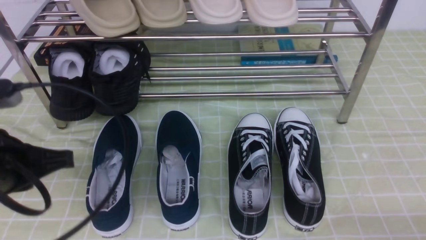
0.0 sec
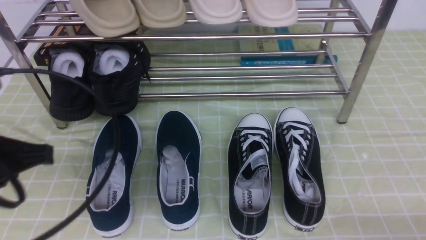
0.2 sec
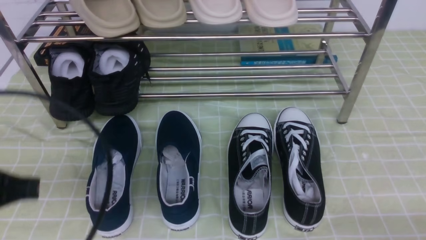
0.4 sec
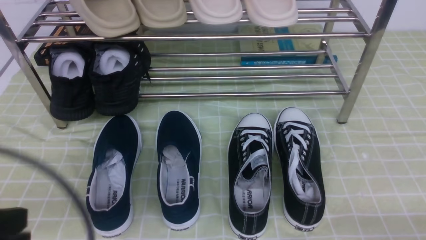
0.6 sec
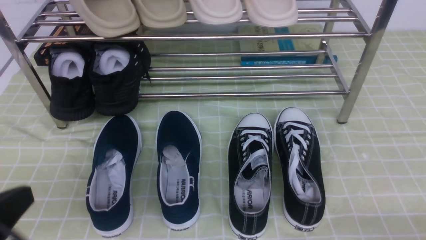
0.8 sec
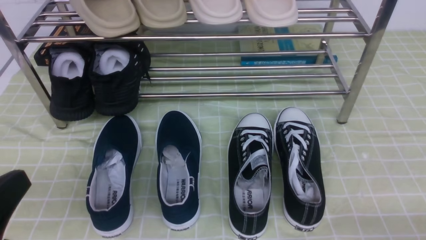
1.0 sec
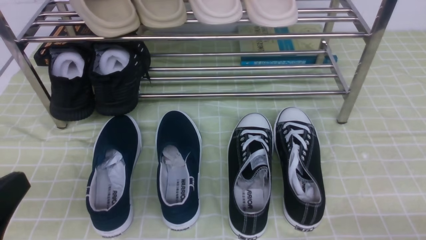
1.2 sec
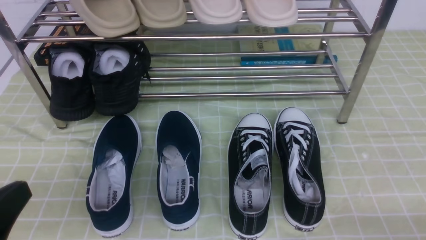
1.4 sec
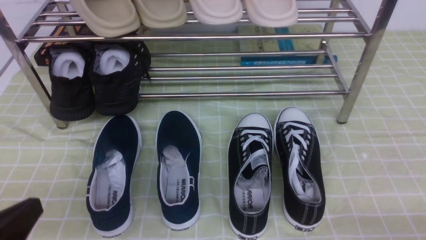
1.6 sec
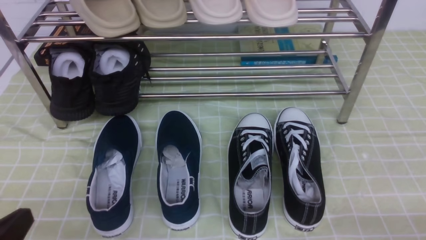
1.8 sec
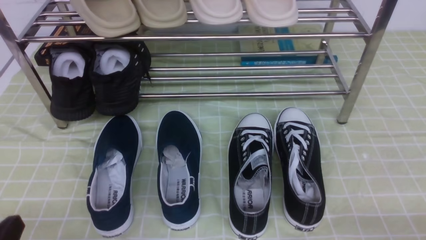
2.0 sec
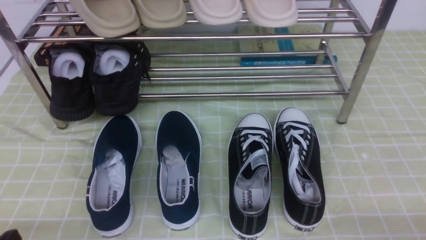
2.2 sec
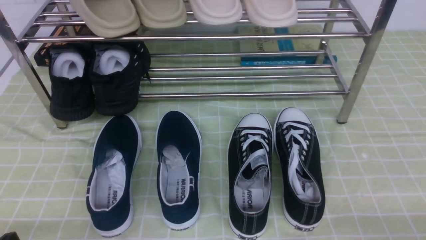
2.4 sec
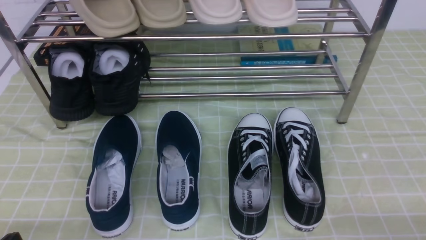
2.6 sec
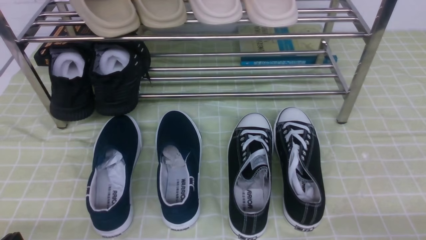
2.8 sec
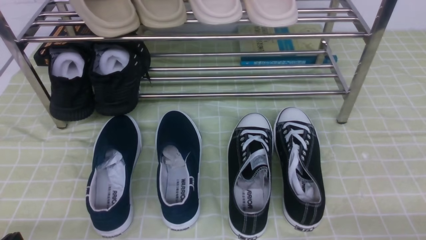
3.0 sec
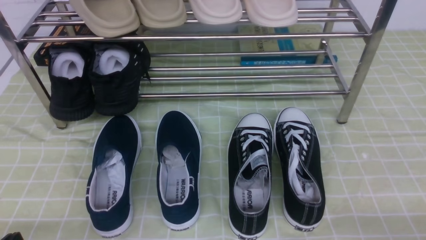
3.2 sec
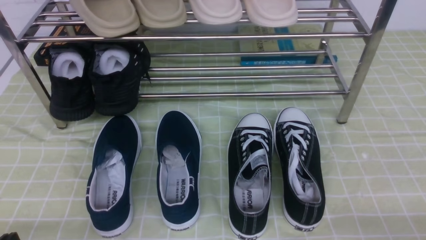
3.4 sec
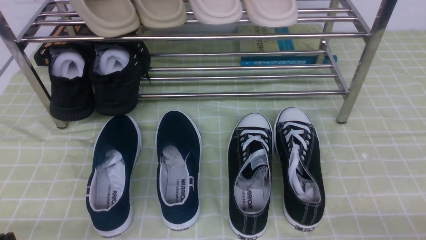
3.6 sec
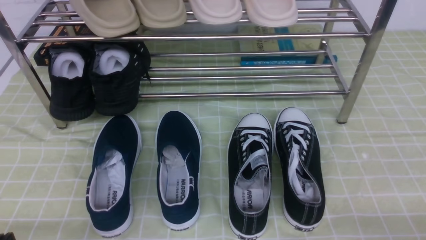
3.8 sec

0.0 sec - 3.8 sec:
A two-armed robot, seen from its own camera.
0.0 sec - 1.2 sec: The left gripper heads backward, covering some 10 cm.
1.2 sec - 2.6 sec: The left gripper shifts roughly 10 cm downward.

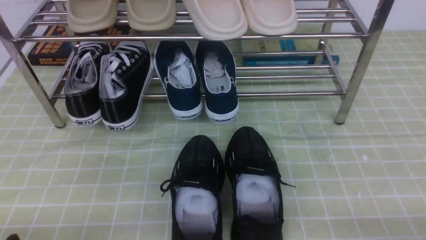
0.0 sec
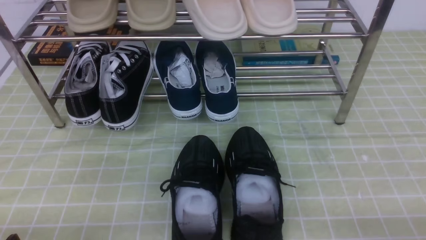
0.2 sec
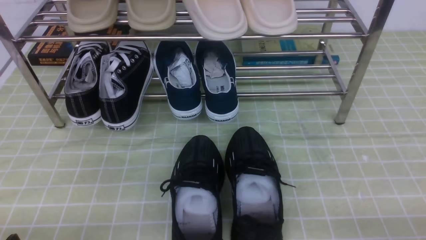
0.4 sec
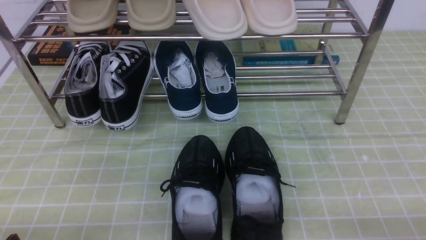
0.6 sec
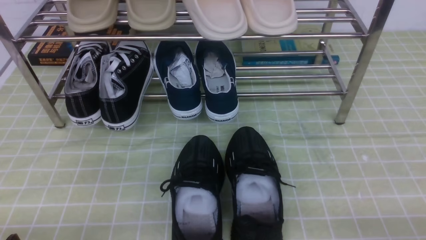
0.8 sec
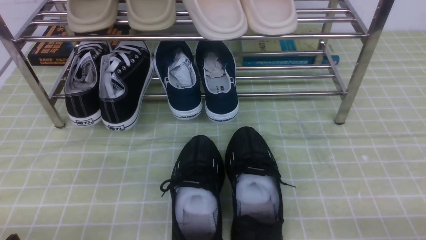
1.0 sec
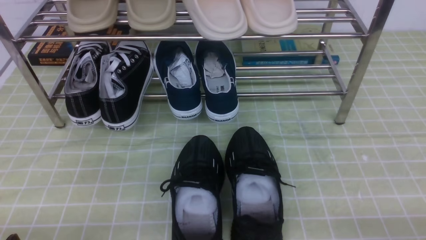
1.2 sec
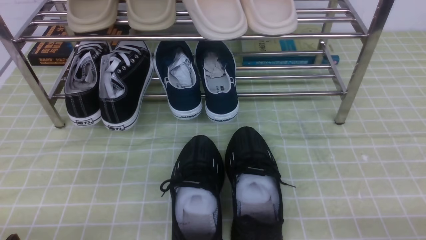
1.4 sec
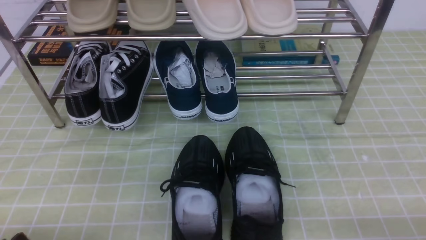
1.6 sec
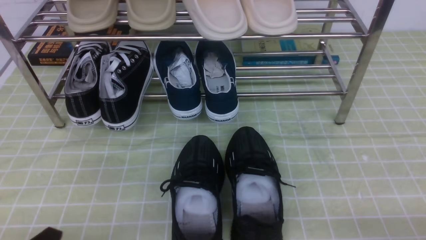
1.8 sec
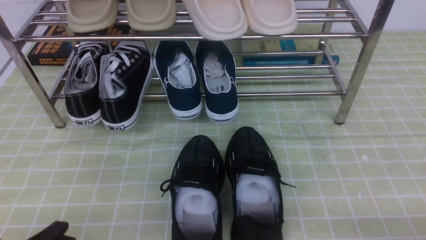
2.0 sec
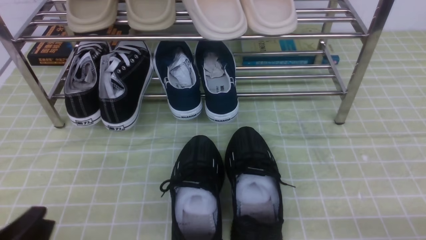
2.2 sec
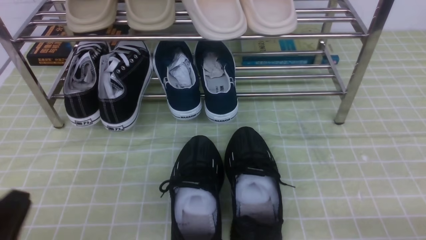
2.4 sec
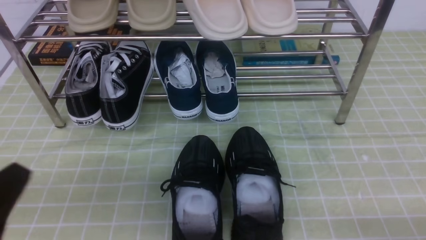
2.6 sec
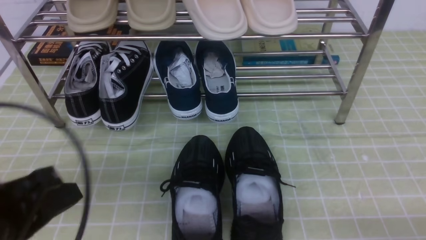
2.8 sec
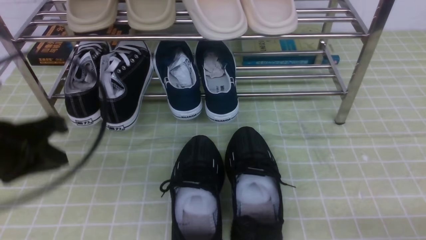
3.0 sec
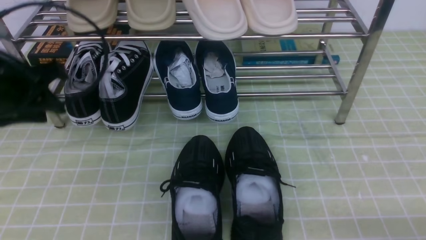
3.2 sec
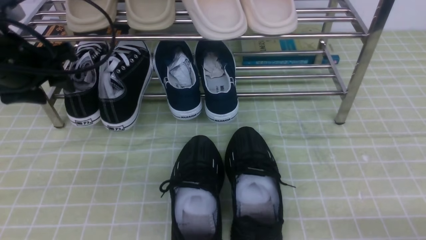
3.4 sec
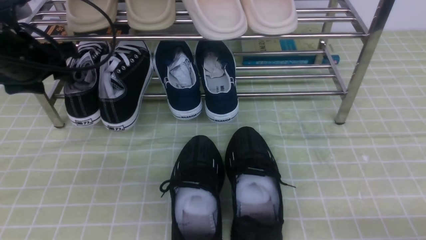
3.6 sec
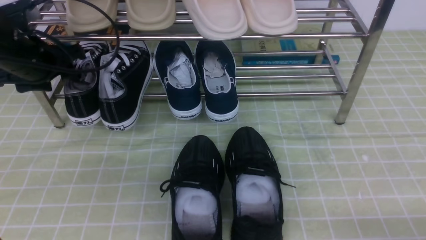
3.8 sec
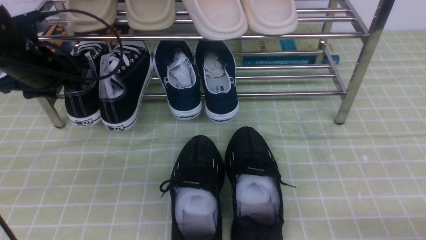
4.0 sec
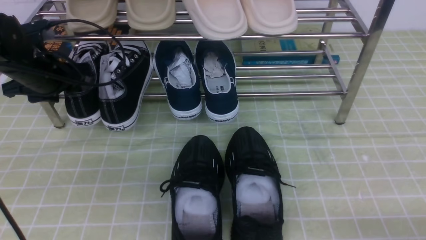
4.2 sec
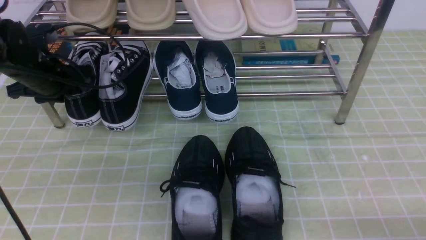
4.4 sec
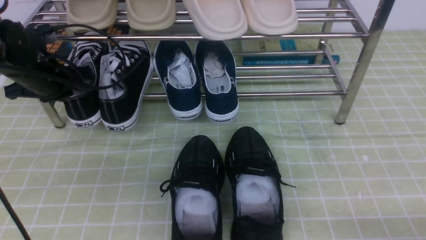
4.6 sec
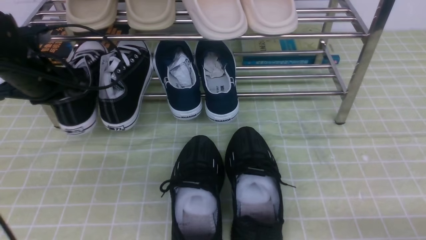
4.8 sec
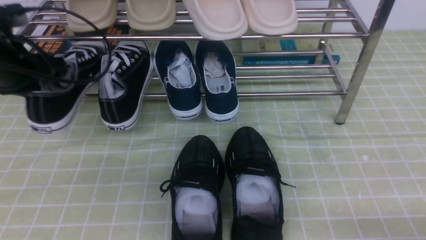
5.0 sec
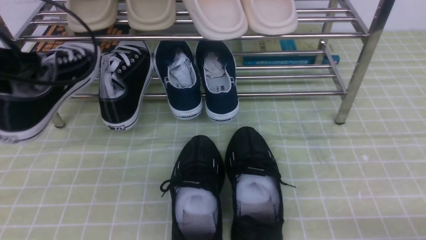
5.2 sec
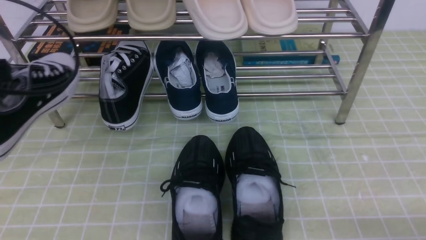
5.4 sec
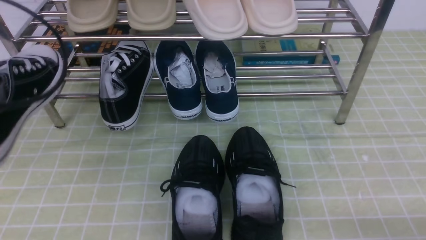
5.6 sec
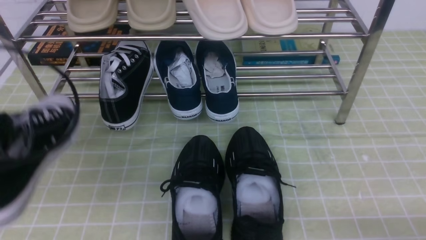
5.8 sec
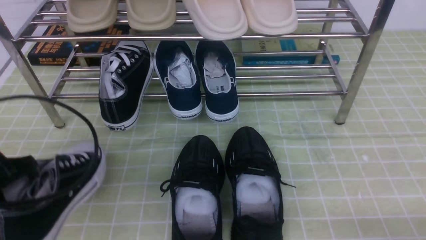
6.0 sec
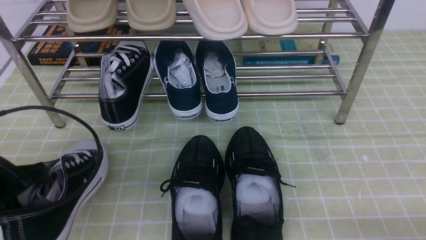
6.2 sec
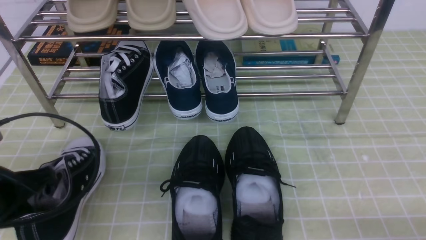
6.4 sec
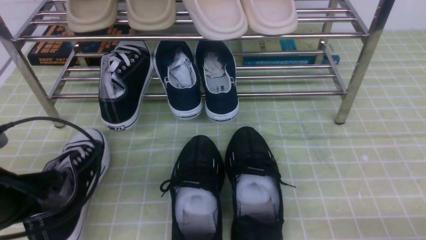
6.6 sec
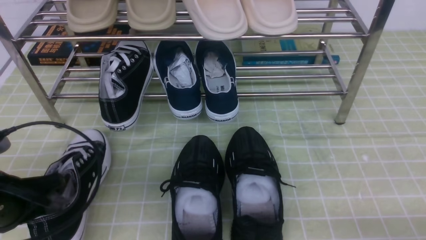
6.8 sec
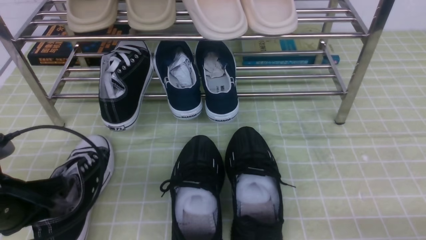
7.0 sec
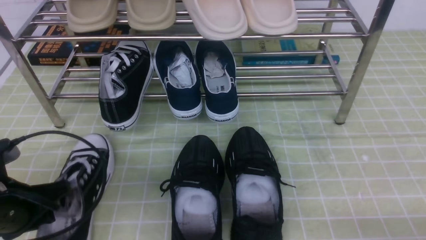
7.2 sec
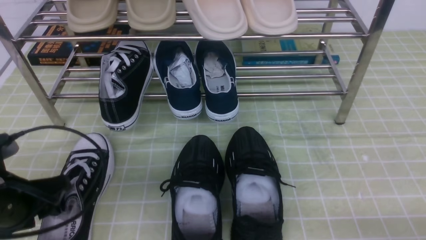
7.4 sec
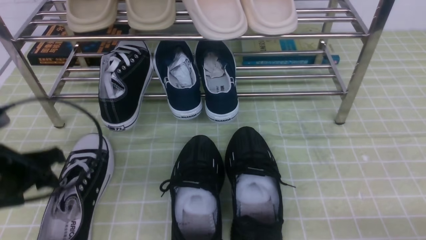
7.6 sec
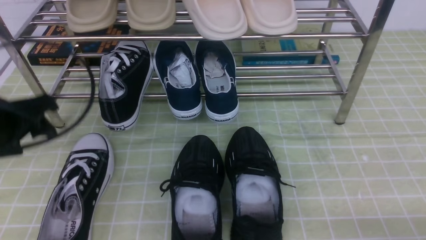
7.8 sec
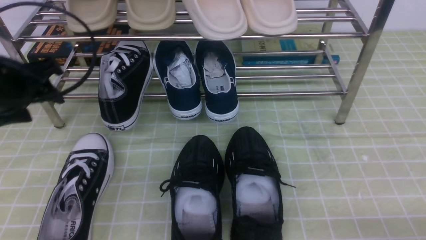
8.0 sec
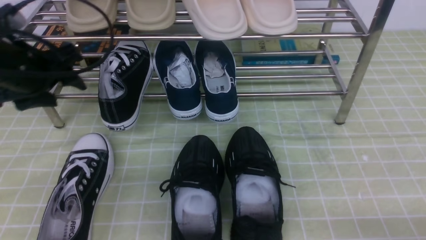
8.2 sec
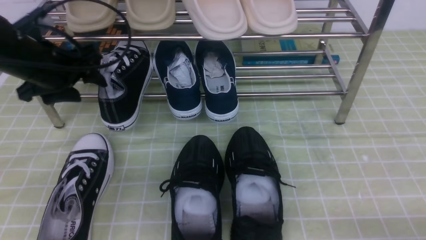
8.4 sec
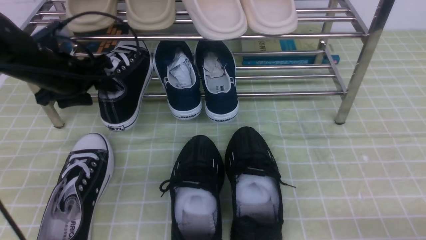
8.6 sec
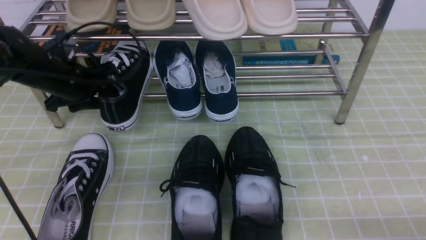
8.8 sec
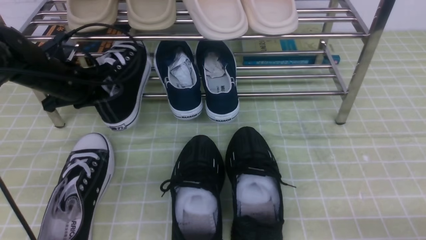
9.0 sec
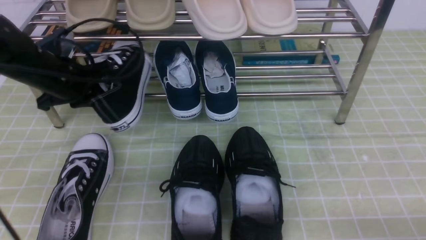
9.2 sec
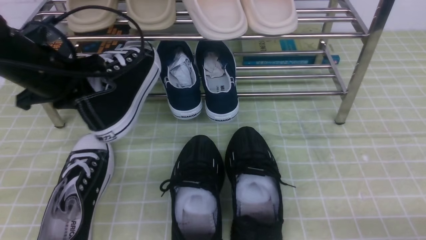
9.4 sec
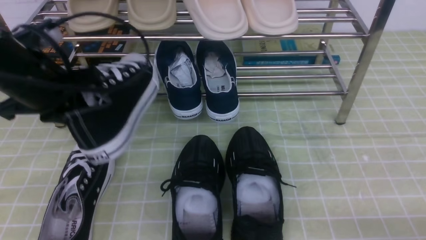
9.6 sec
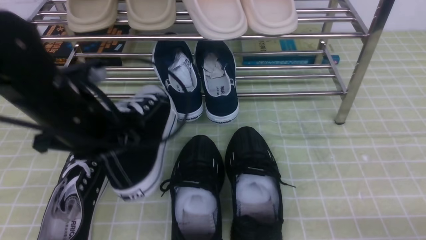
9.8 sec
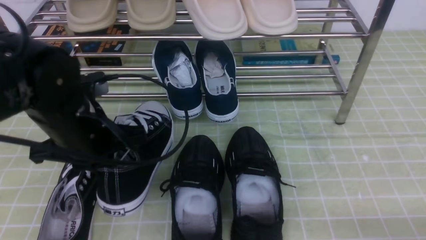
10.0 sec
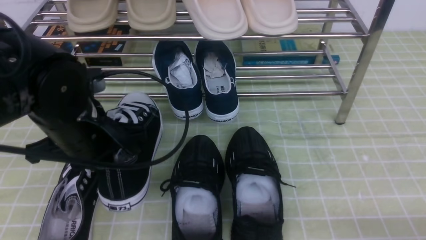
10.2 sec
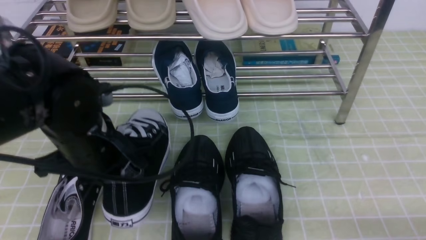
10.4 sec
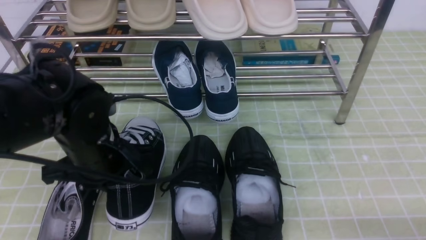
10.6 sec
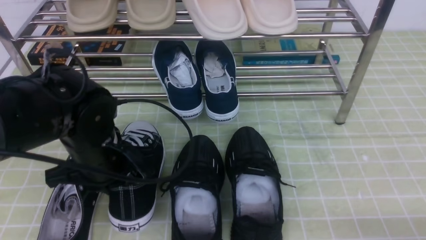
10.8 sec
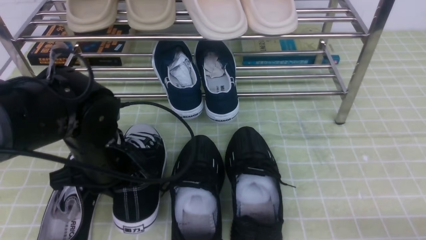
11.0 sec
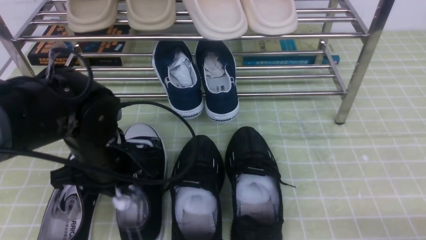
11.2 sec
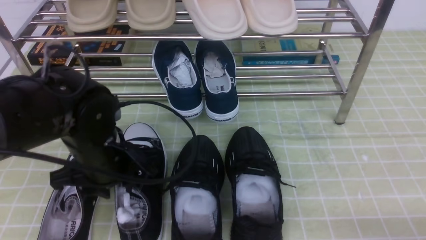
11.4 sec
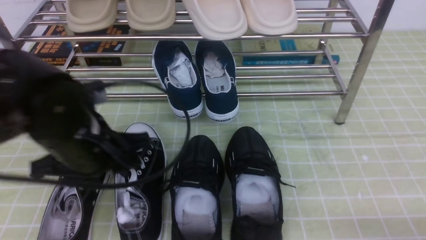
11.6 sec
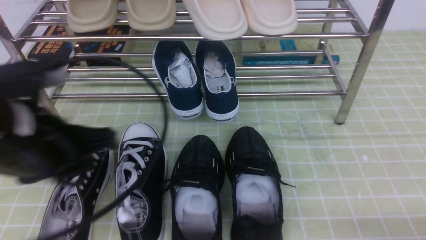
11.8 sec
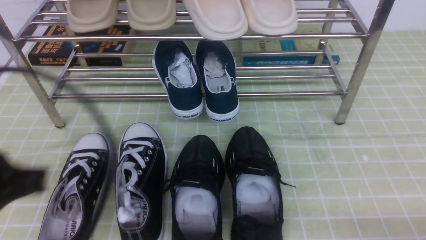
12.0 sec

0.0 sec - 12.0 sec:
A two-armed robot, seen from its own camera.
Step, 0.0 sec - 4.4 sec: use the left arm to clamp a shoe on the left side of the shoe rack.
Step, 4.8 sec - 7.4 sec: Use your left arm to remove the clamped shoe from the shoe rack and put it down.
Step, 7.6 sec - 9.0 sec: use the left arm to clamp a shoe on the left side of the shoe rack.
Step, 9.2 sec - 11.4 sec: Use your left arm to remove the clamped shoe from the shoe rack and put it down.
1.6 sec - 3.0 sec: The left gripper shifts approximately 20 cm upward and forward.
3.0 sec - 4.4 sec: The left gripper moves forward, about 20 cm, and opens, then closes once more.
4.4 sec - 6.0 sec: The left gripper shifts roughly 20 cm backward, and closes.
6.0 sec - 7.6 sec: The left gripper opens its fingers.
7.6 sec - 9.0 sec: The left gripper is displaced forward by some 15 cm, and closes its fingers.
9.0 sec - 10.4 sec: The left gripper travels backward and to the right by some 20 cm.
10.4 sec - 12.0 sec: The left gripper heads backward, upward and to the left, covering approximately 20 cm, and opens, then closes again.

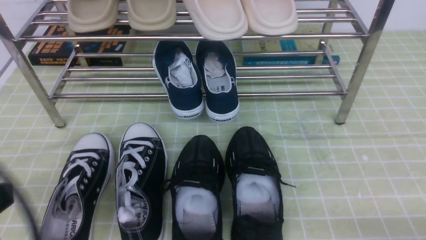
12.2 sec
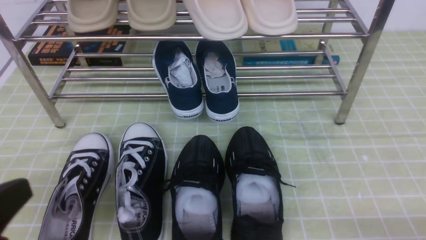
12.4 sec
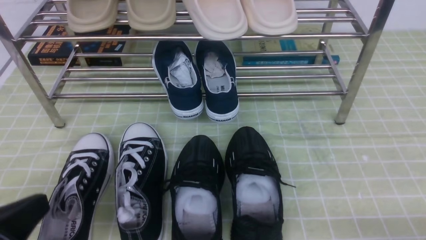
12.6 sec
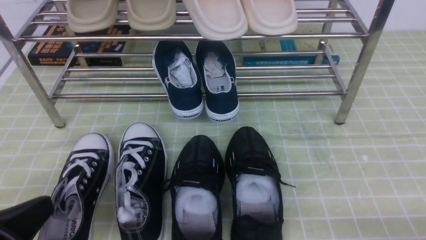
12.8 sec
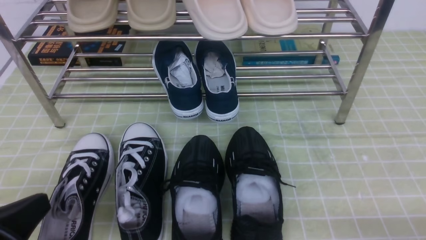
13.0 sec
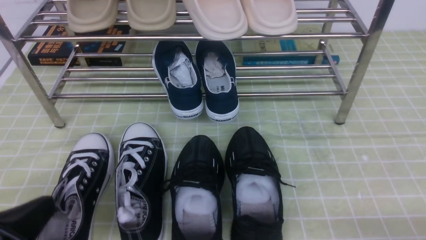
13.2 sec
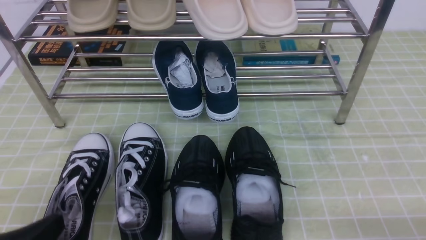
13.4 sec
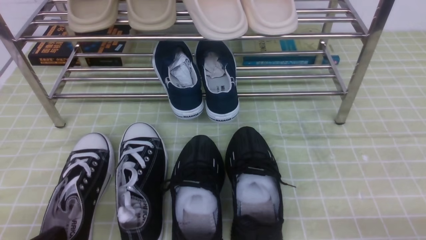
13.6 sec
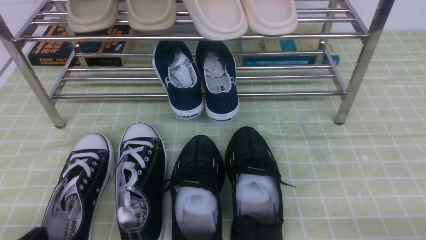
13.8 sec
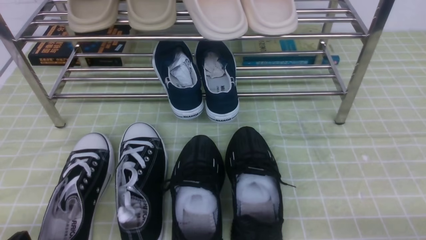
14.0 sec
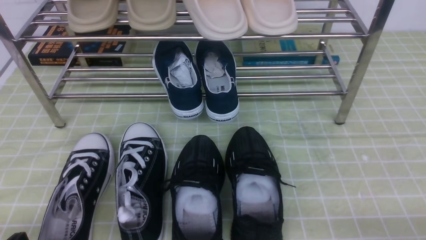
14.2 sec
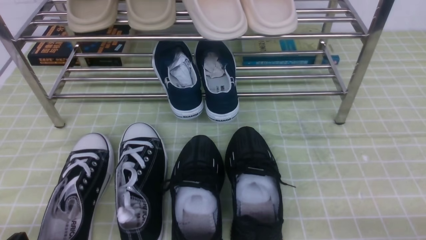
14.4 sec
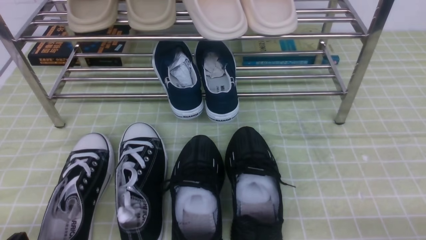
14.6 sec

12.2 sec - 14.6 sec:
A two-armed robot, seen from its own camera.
12.2 sec - 13.4 sec: The left gripper is displaced downward by about 10 cm.
13.4 sec - 14.6 sec: The left gripper heads downward, covering approximately 5 cm.
